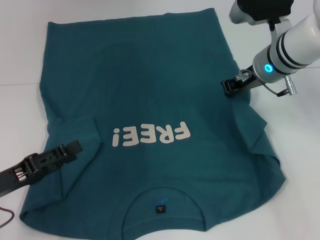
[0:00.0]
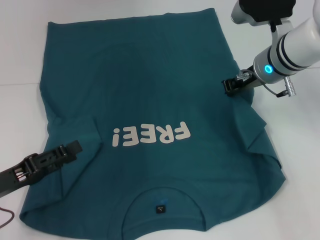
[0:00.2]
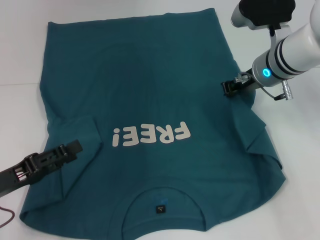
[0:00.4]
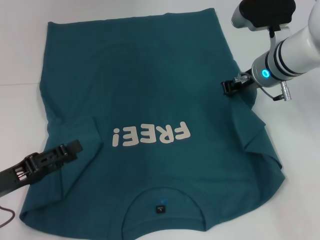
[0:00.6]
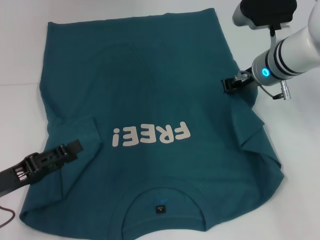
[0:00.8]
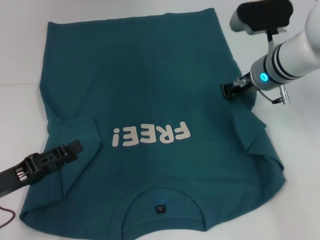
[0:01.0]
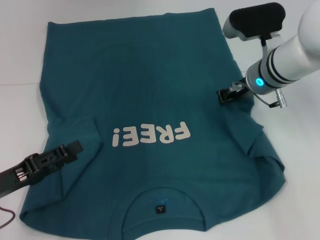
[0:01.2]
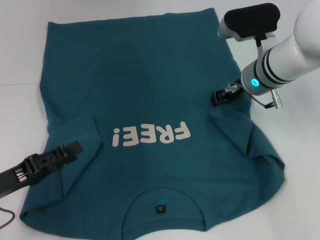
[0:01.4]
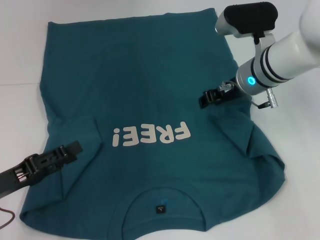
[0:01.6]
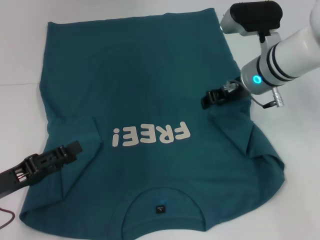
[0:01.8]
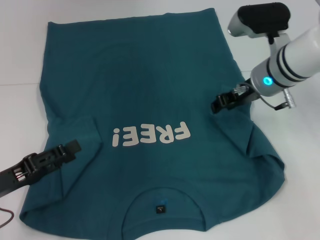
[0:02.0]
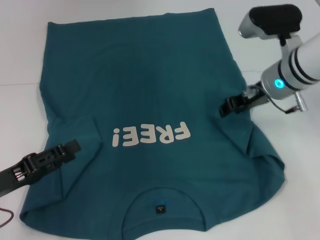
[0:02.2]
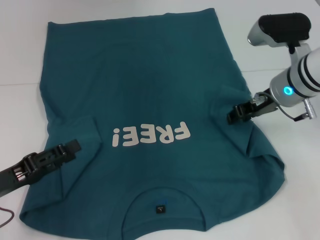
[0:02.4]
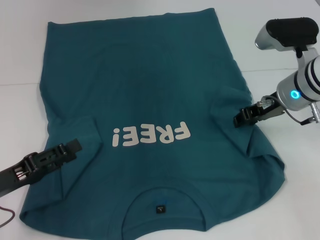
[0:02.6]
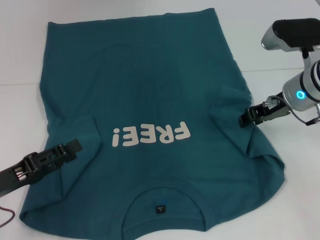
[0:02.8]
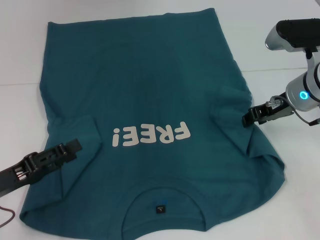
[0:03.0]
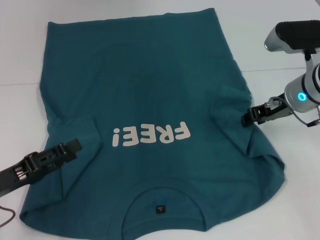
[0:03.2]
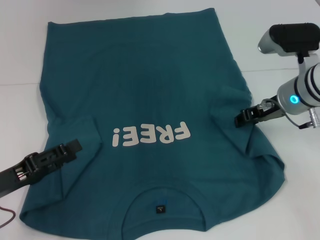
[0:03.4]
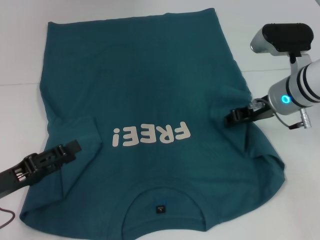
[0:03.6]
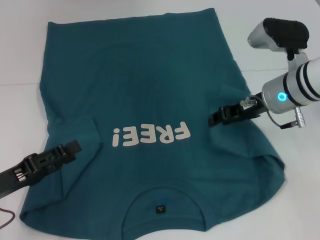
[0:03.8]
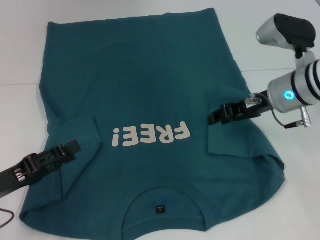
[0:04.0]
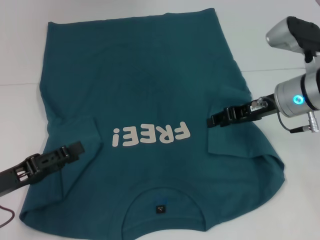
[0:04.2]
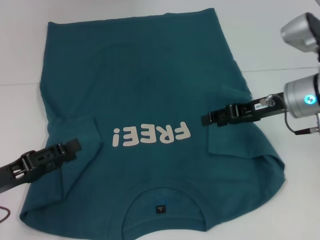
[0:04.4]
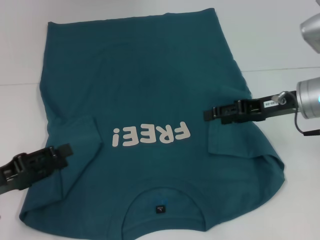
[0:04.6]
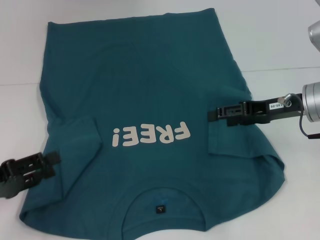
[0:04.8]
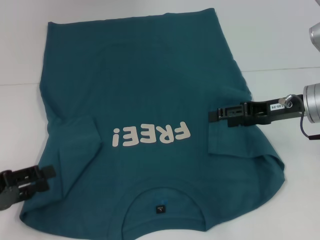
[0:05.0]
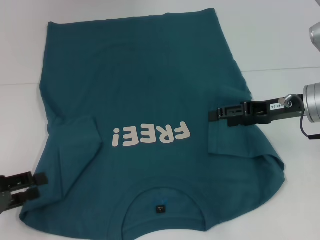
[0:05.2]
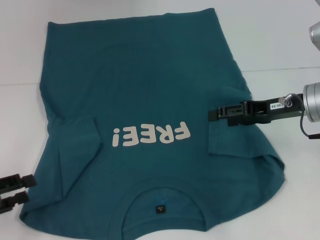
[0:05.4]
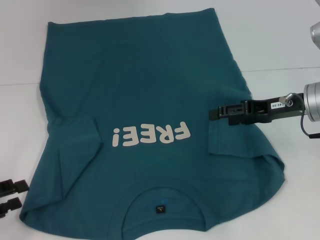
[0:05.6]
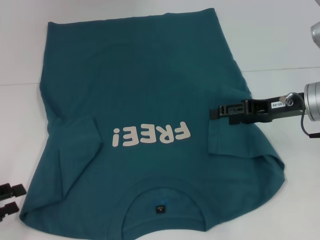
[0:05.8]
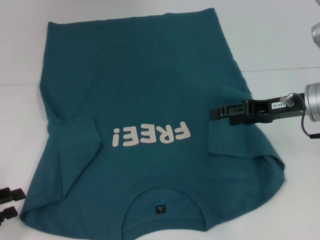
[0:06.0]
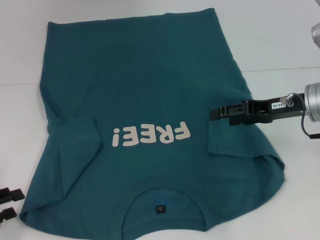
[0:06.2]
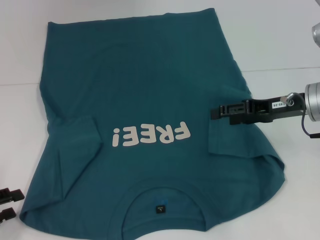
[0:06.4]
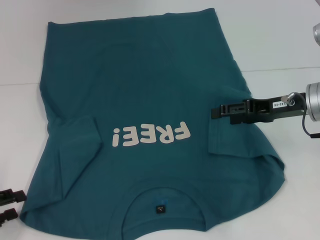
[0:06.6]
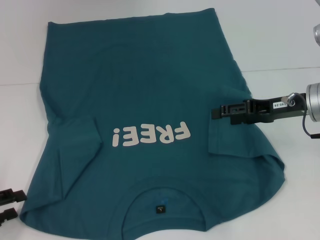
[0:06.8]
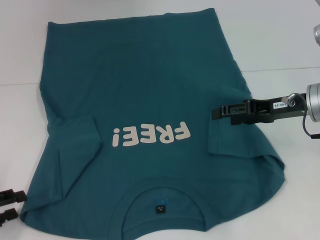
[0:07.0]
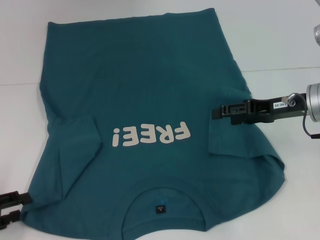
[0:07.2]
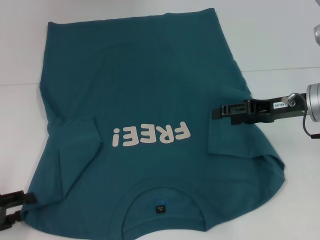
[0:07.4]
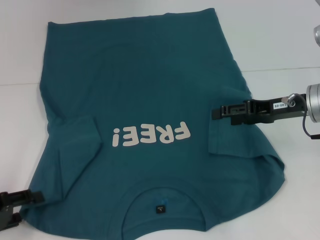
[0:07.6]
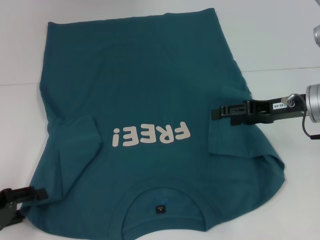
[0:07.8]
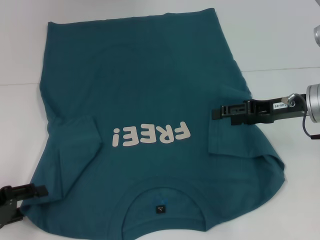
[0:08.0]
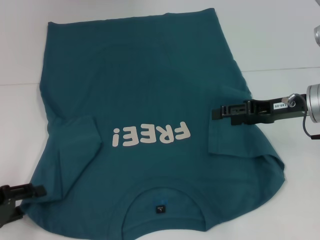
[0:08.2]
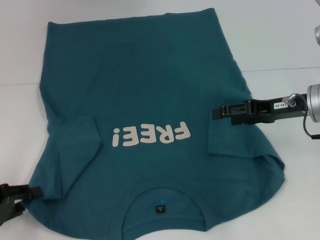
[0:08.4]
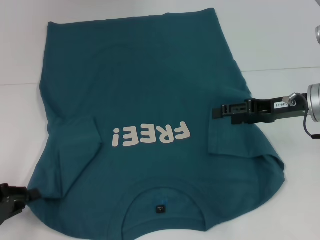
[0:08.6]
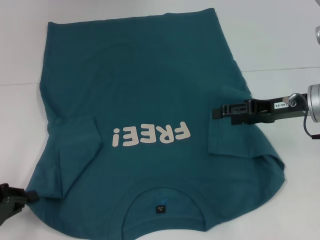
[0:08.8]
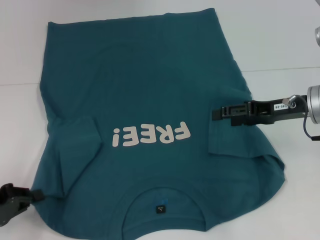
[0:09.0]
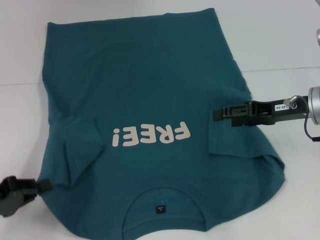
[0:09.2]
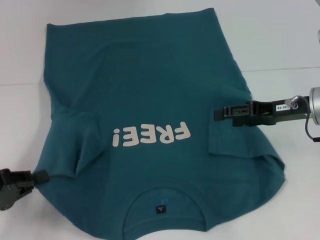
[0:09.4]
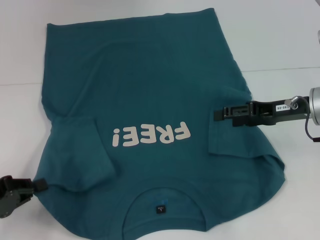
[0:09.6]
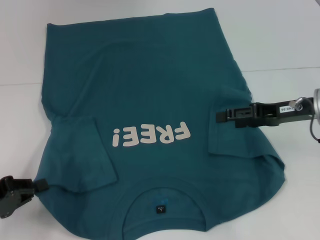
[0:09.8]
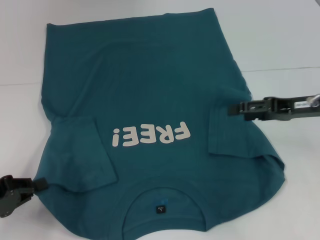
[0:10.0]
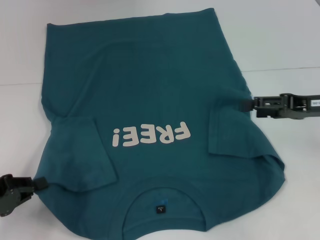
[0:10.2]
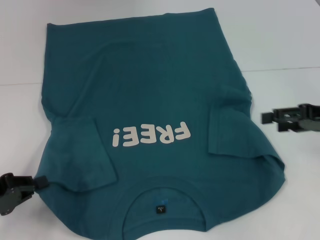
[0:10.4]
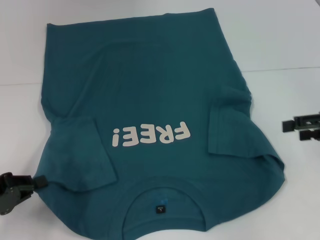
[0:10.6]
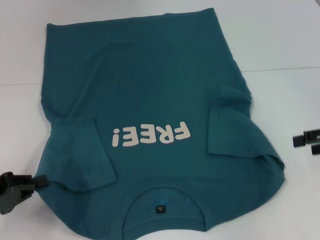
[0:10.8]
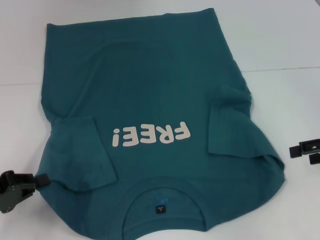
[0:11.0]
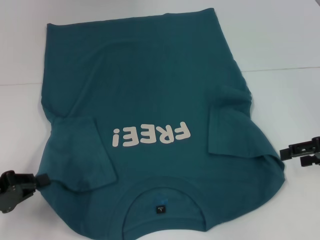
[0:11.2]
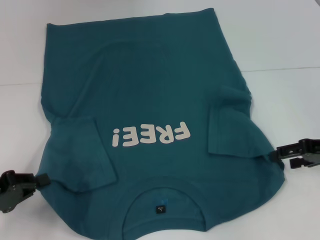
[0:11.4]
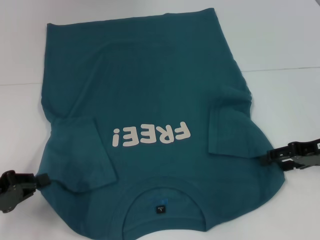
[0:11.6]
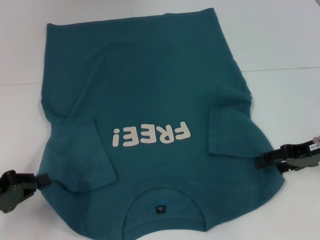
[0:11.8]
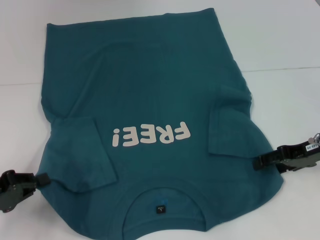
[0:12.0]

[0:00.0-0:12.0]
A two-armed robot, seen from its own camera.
Step, 0:00.0 to 0:04.2: Fold the bottom right sleeve to the right.
Step, 0:04.4 to 0:09.0: Grab the bottom left corner with your left hand.
0:00.0 to 0:01.6: The right gripper opens up.
0:01.6 to 0:03.0: The right gripper shifts about 5 cm to the right.
0:04.4 to 0:06.0: The left gripper goes roughly 5 cm to the left. The right gripper opens.
0:06.0 to 0:07.6: The grippers stay close to where they were, moving slightly.
0:07.6 to 0:09.0: The left gripper closes up.
0:09.0 to 0:10.4: The right gripper goes roughly 5 cm to the right.
0:10.4 to 0:12.0: The right gripper shifts by some 5 cm.

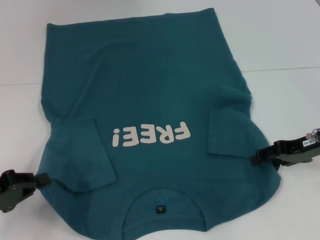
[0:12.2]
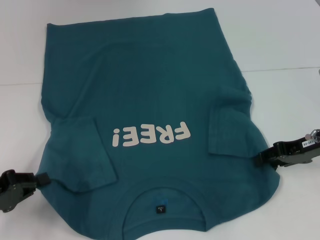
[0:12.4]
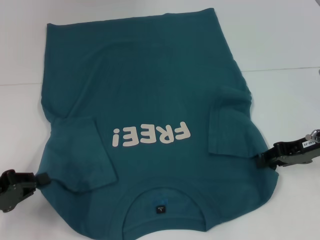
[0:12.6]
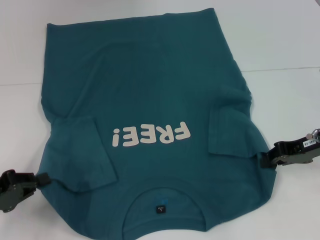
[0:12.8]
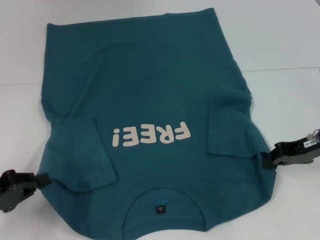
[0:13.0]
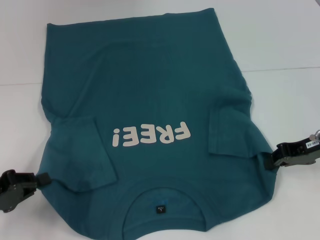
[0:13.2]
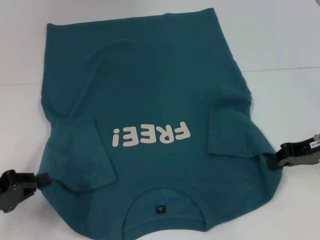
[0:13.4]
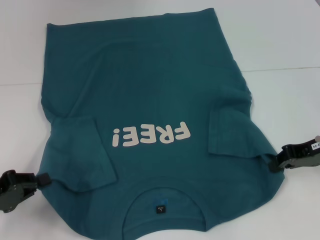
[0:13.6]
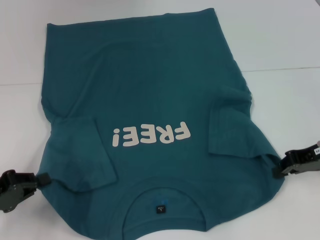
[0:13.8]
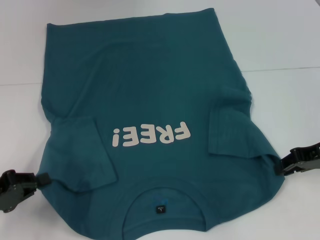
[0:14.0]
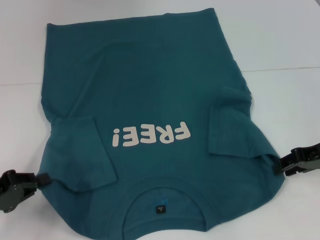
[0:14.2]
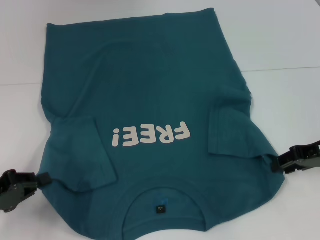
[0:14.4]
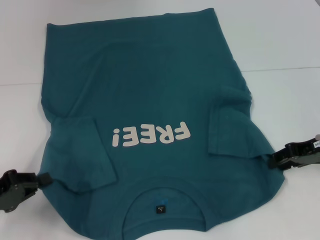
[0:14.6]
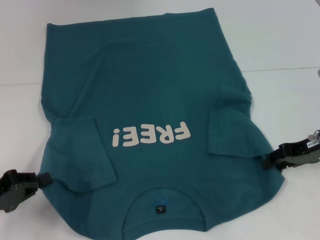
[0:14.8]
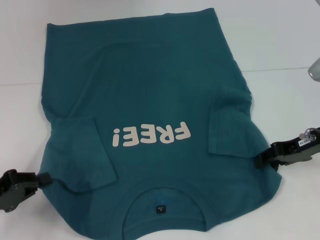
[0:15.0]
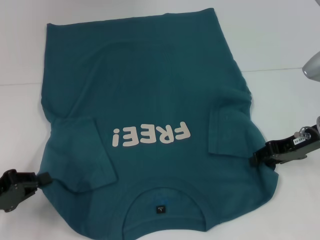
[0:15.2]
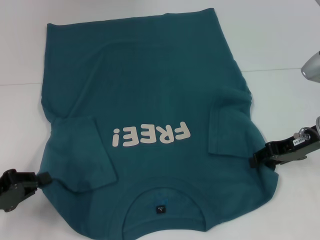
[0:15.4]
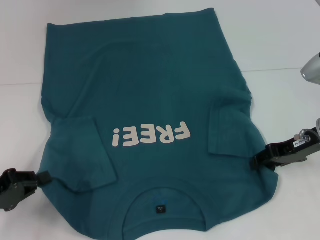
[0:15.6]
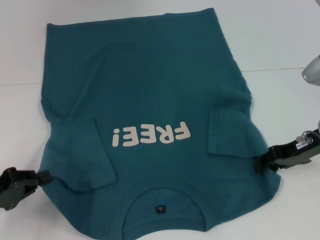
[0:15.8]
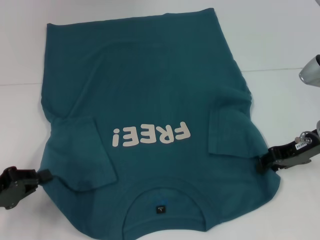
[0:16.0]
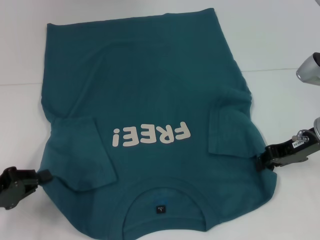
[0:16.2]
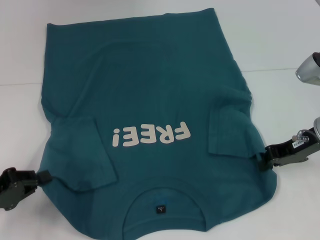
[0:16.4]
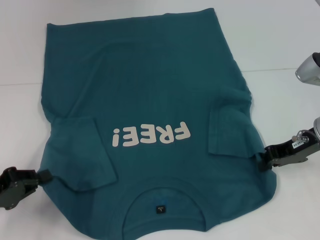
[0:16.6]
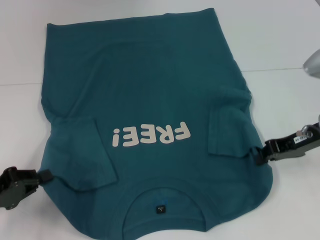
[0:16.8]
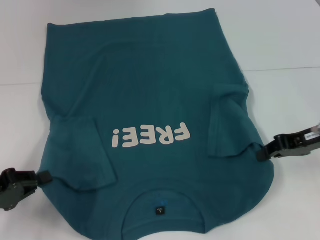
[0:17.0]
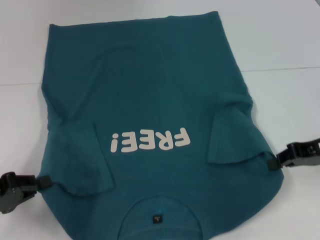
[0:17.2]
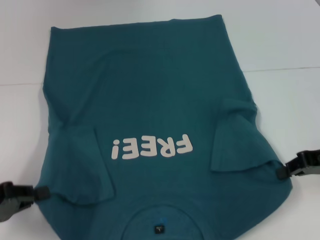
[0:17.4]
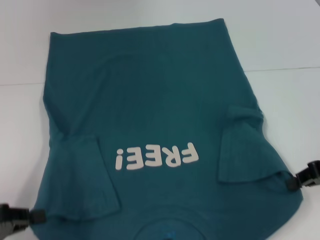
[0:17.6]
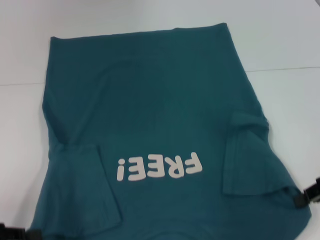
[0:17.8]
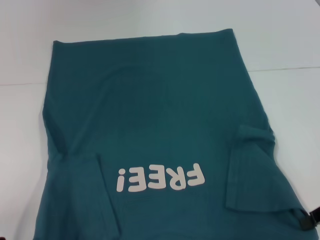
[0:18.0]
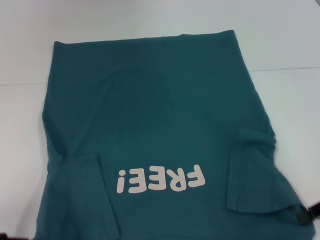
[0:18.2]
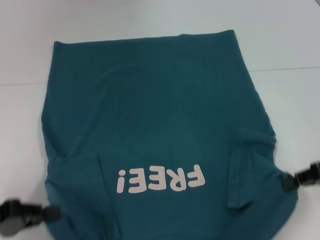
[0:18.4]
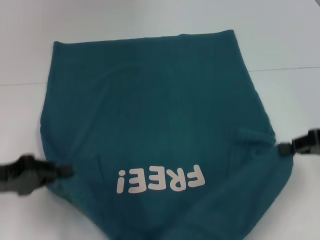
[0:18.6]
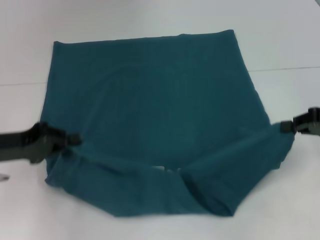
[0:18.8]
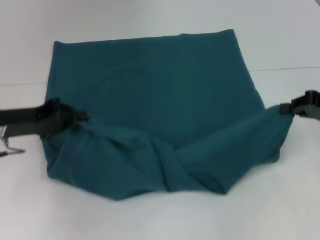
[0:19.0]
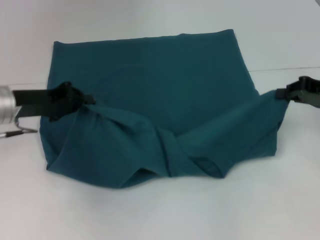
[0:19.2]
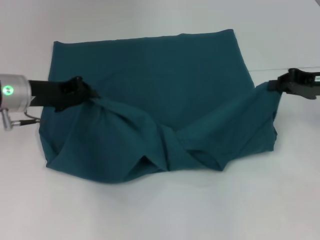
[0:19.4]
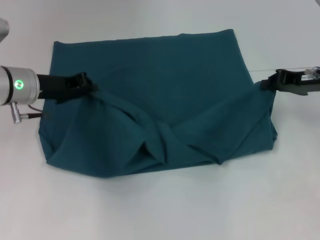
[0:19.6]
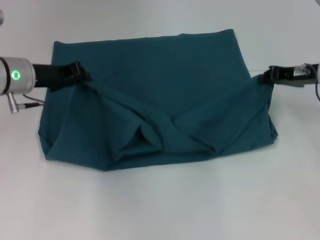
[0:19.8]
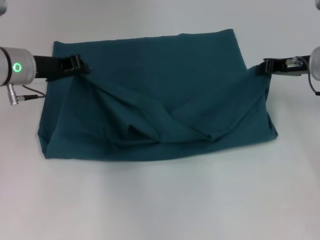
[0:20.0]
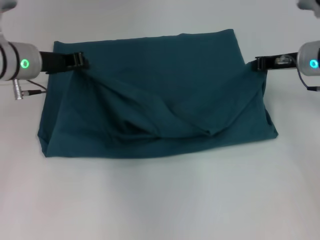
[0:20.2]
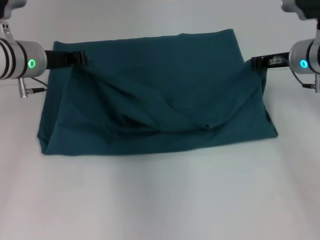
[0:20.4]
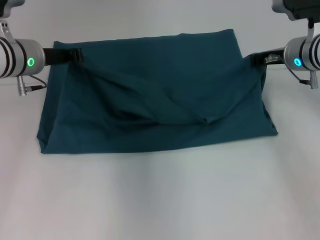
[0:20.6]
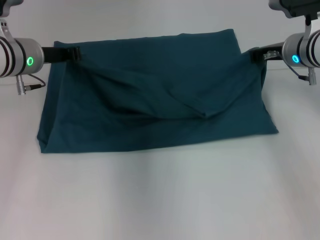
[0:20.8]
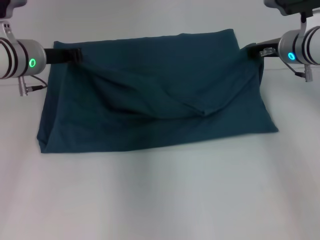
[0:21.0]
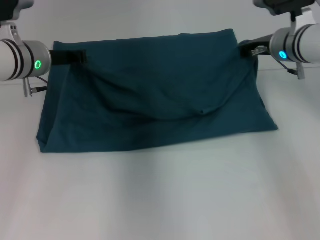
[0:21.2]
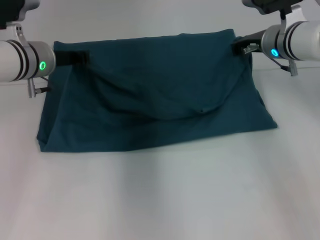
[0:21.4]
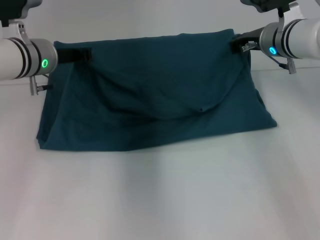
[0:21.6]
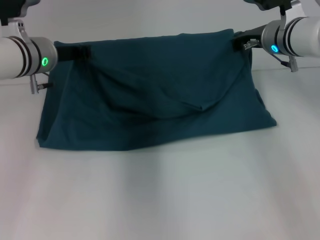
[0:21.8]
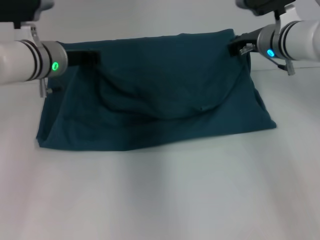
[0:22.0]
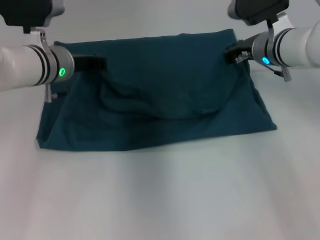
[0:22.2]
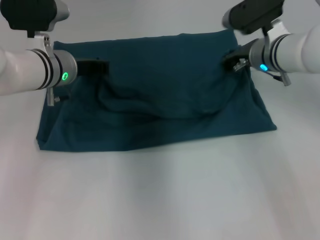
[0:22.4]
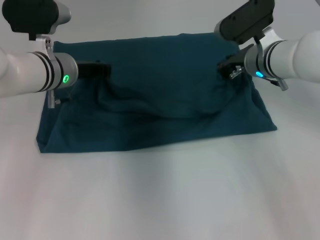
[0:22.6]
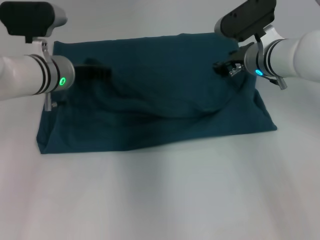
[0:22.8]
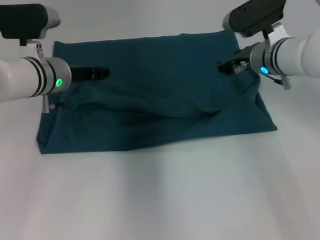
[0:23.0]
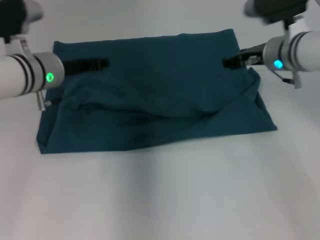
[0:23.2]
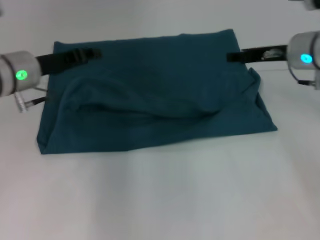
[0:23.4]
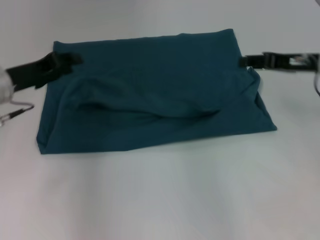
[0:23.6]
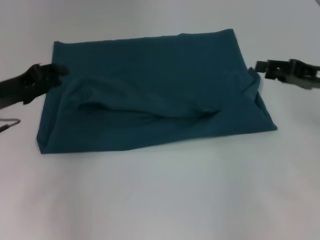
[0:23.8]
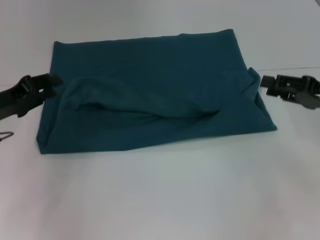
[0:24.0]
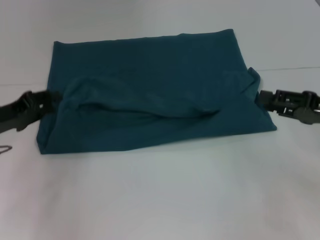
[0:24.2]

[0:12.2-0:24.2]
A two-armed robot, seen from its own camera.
Step, 0:12.2 to 0:16.6: Grab the bottom right corner with your right hand.
Step, 0:16.8 to 0:23.2: Fold the clothes to the left.
Step, 0:16.8 to 0:23.2: Fold the clothes to the right.
0:12.2 to 0:13.8: The right gripper closes.
0:13.8 to 0:15.2: The right gripper opens.
0:15.2 to 0:16.6: The right gripper closes.
0:16.6 to 0:18.2: The right gripper shifts about 10 cm backward and to the right. The left gripper goes some 5 cm backward.
0:18.2 to 0:19.8: The left gripper moves forward and to the right, about 25 cm. The right gripper shifts some 15 cm forward.
0:19.8 to 0:21.2: The right gripper goes approximately 10 cm to the left and forward.
0:21.2 to 0:22.6: There are only small adjustments of the grippers.
0:22.6 to 0:24.2: The left gripper shifts some 15 cm to the left and backward, while the right gripper heads to the right and backward, covering about 20 cm, and opens.
